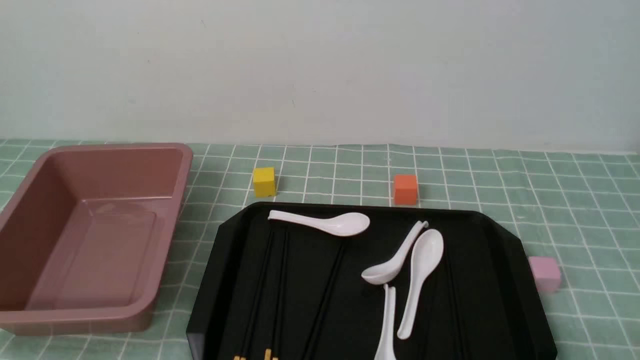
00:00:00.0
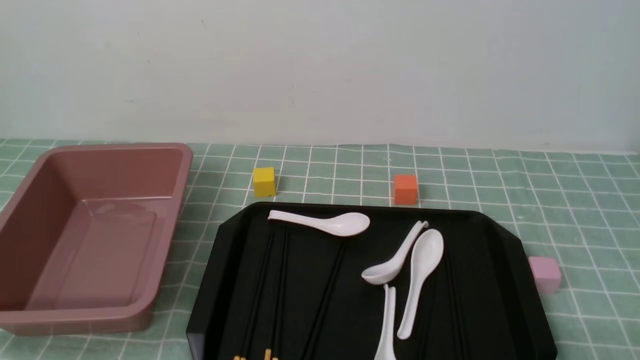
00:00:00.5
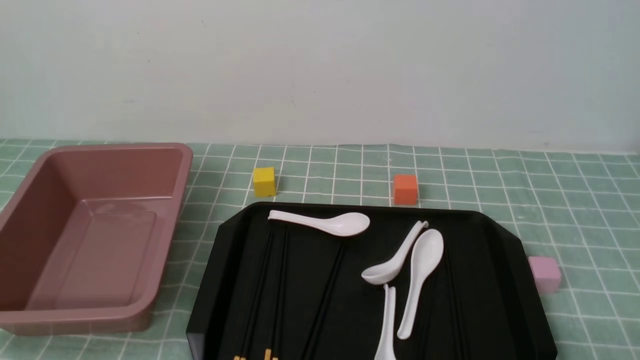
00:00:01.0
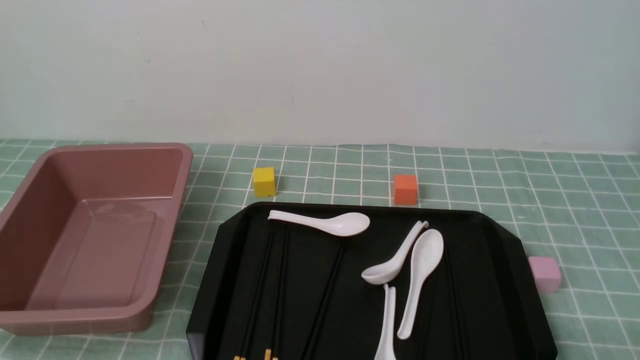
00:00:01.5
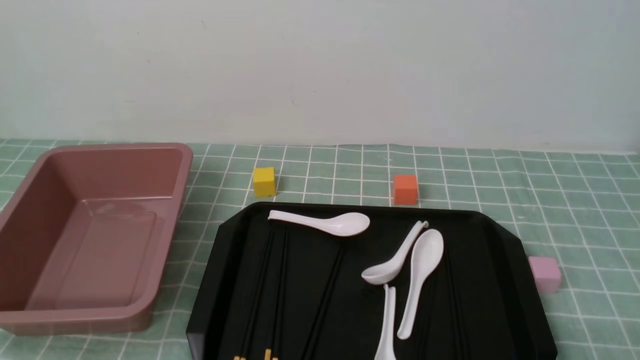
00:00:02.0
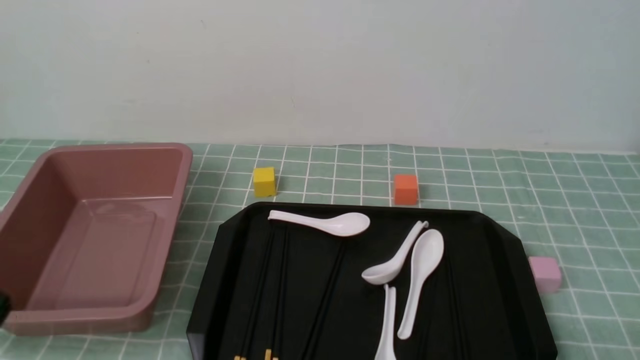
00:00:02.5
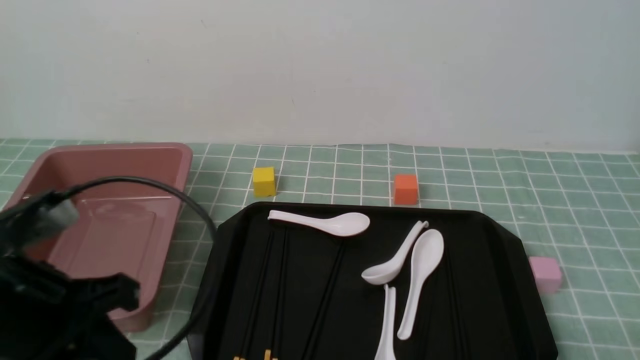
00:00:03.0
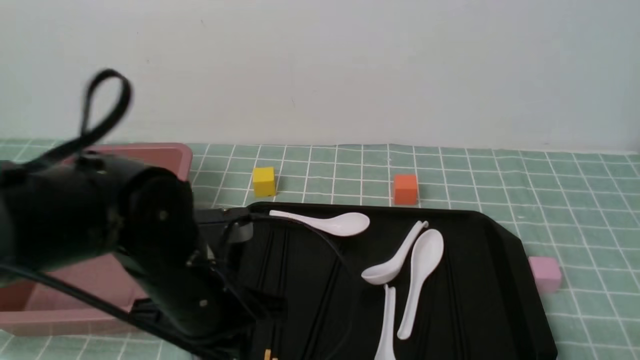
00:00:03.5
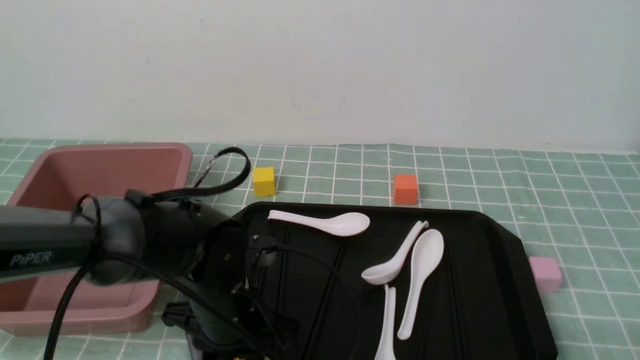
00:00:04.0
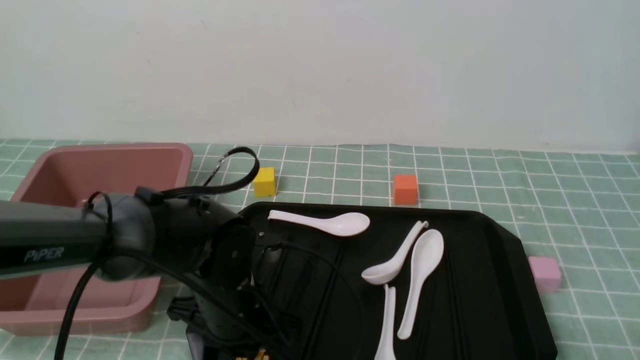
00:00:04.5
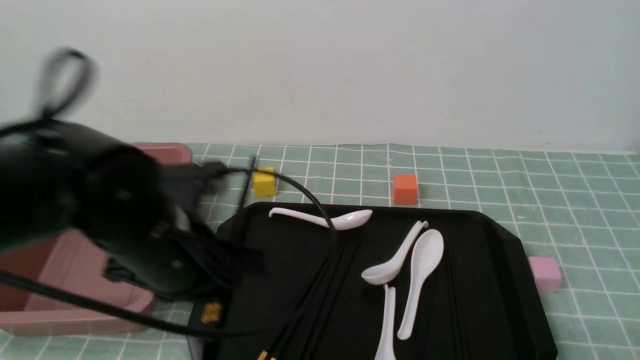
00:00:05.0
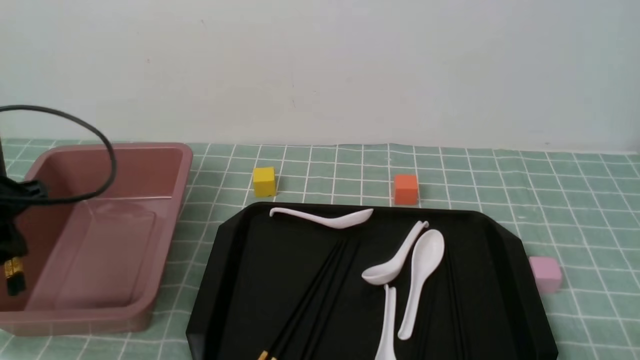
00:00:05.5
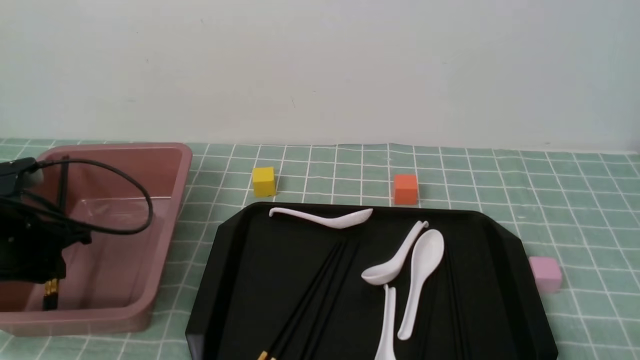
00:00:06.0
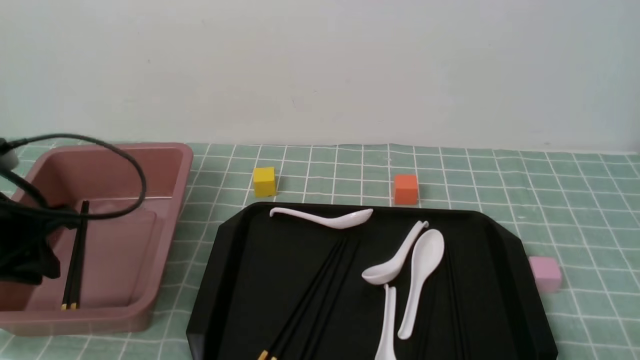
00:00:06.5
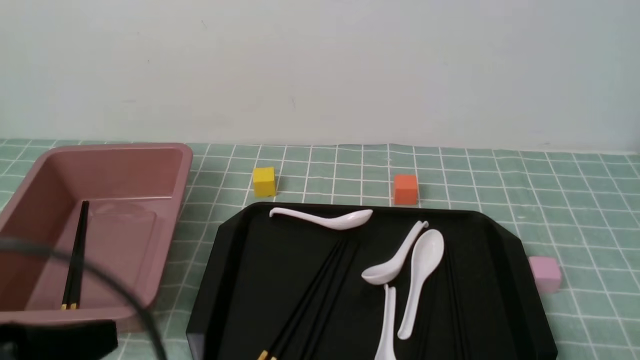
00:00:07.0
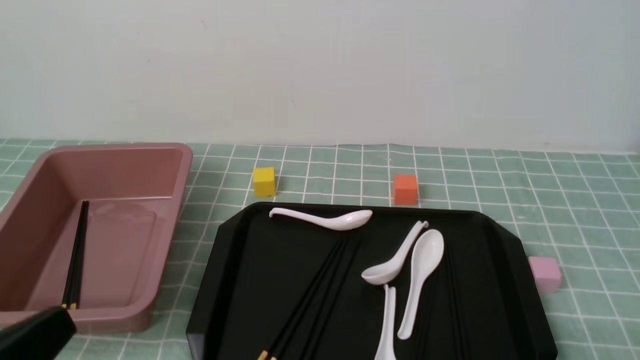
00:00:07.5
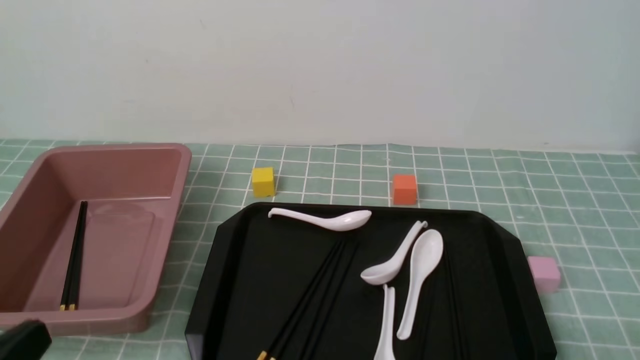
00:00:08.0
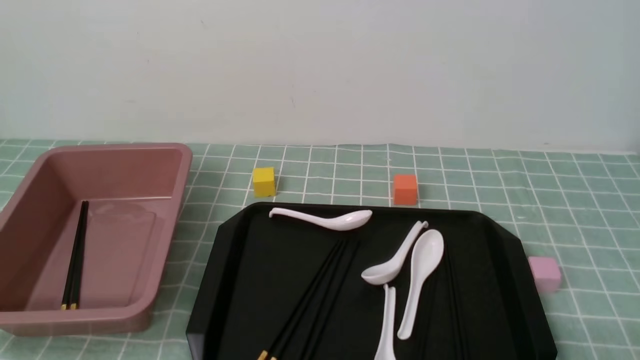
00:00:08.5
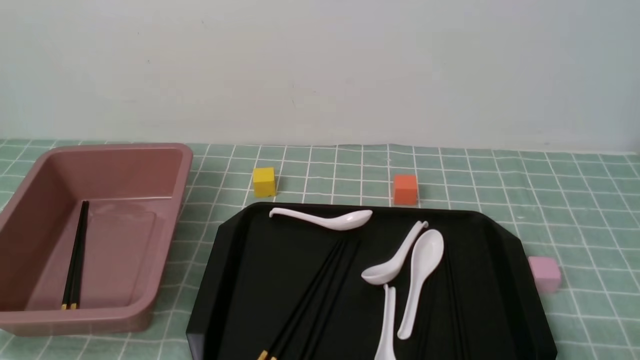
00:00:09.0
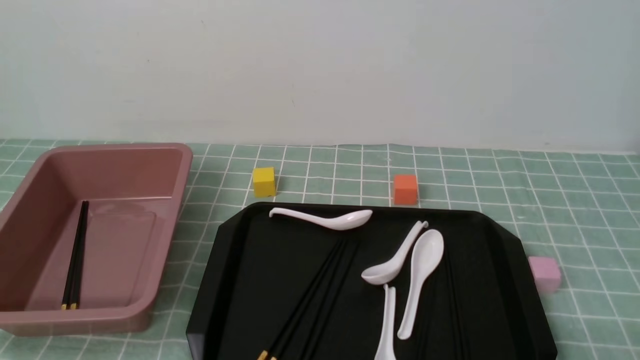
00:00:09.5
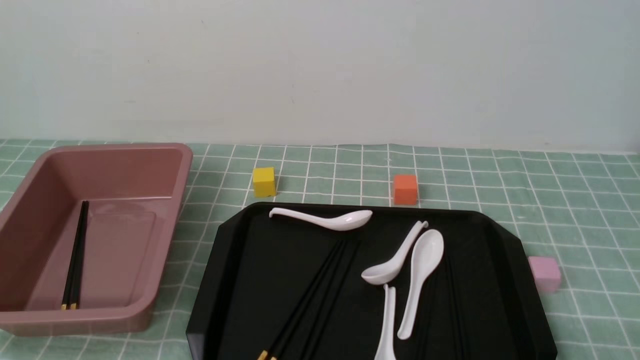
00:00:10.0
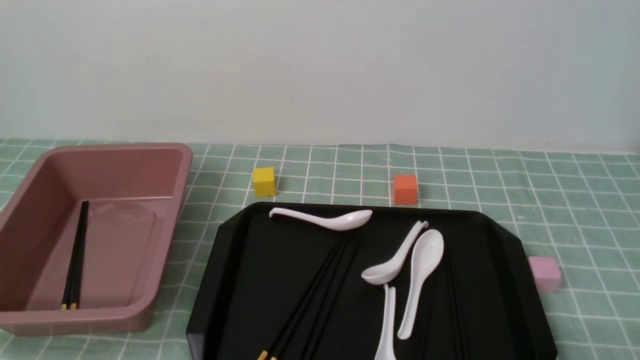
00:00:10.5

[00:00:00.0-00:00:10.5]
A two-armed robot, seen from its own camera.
Step, 00:00:00.0 to 00:00:04.5: use the left arm to grab a pair of chopsticks.
Step, 00:00:05.5 to 00:00:06.0: use the left arm to put the chopsticks into the lunch box.
00:00:02.0 to 00:00:04.0: The left gripper shifts roughly 25 cm forward and to the right, and closes and opens again.
00:00:04.0 to 00:00:06.5: The left gripper heads to the left and upward, covering approximately 25 cm, and closes up.
00:00:06.5 to 00:00:08.5: The left gripper heads backward, covering about 20 cm, and closes its fingers.
